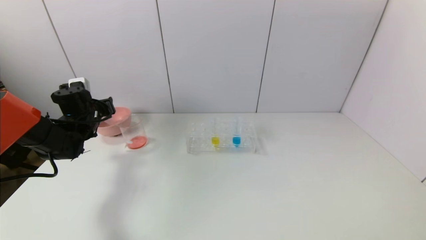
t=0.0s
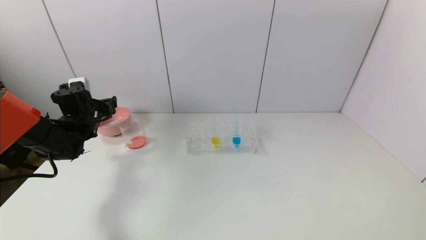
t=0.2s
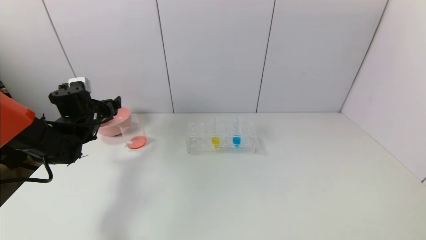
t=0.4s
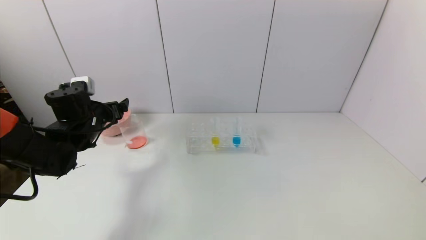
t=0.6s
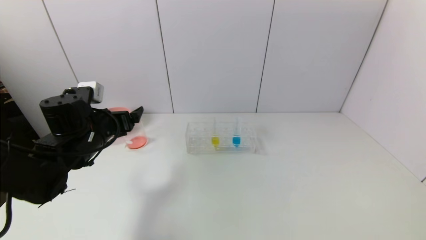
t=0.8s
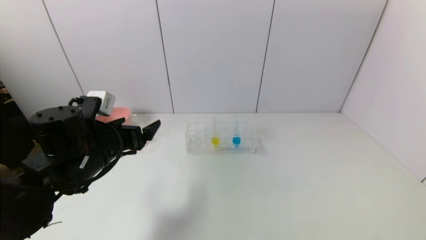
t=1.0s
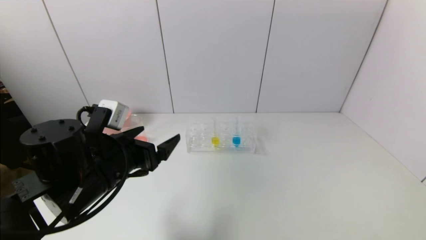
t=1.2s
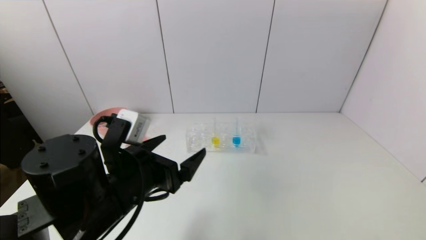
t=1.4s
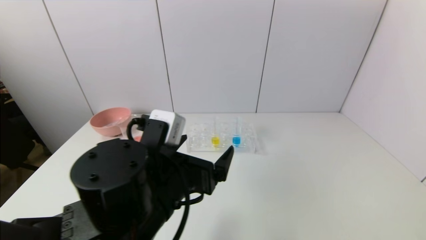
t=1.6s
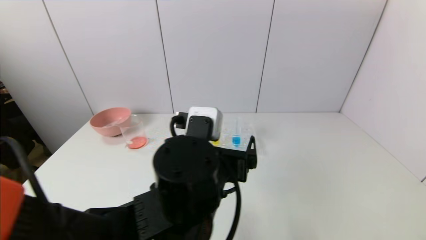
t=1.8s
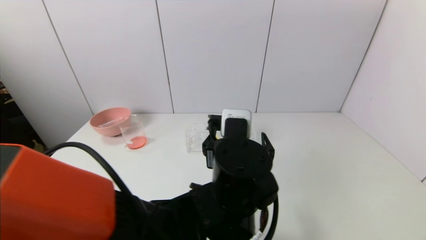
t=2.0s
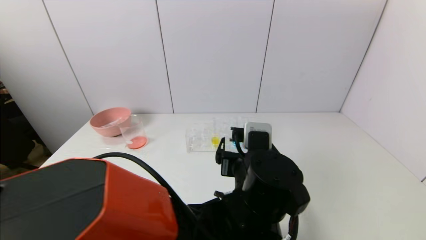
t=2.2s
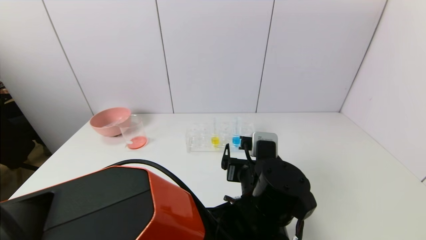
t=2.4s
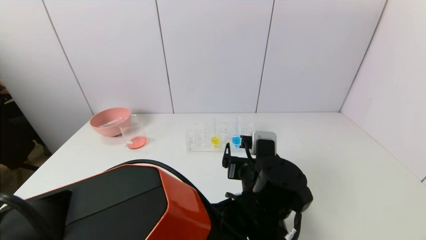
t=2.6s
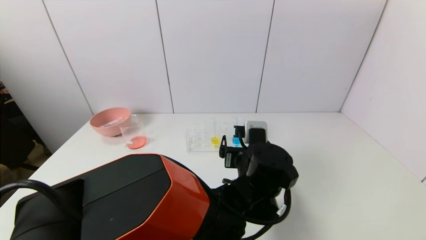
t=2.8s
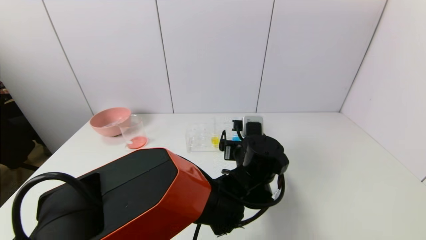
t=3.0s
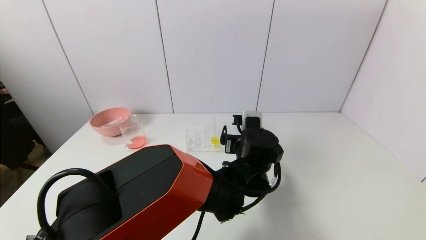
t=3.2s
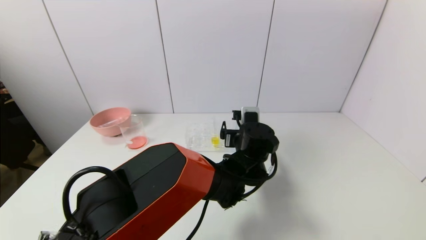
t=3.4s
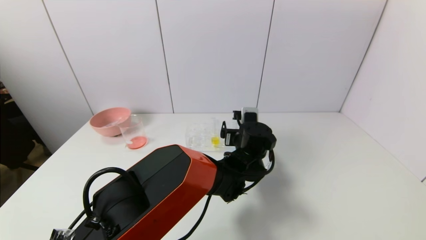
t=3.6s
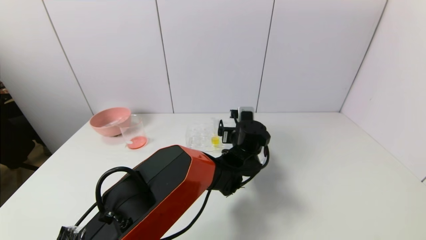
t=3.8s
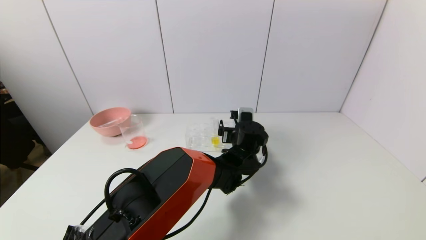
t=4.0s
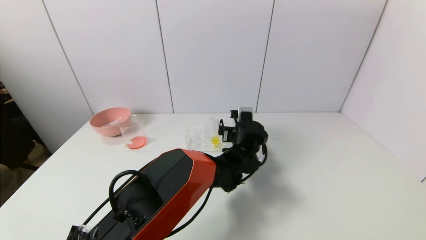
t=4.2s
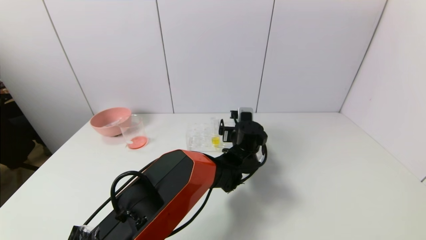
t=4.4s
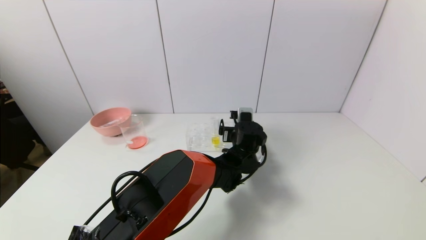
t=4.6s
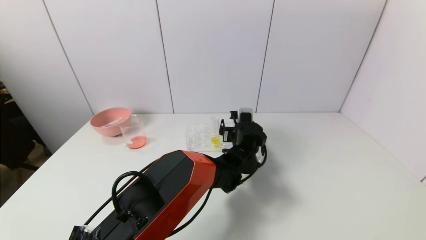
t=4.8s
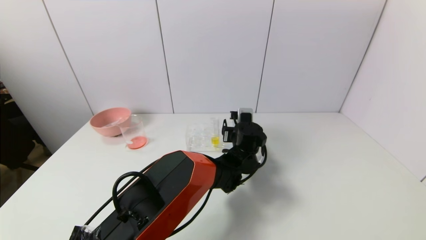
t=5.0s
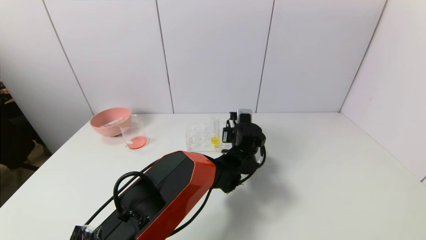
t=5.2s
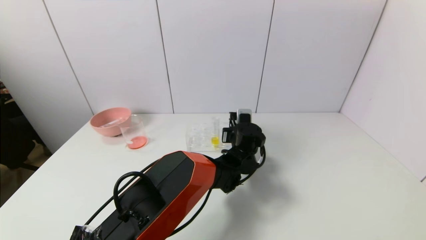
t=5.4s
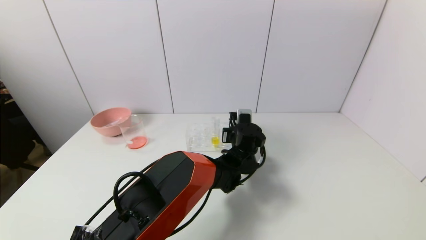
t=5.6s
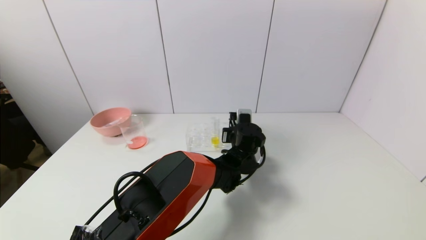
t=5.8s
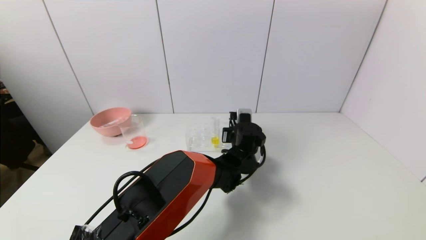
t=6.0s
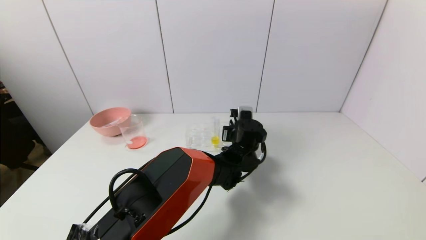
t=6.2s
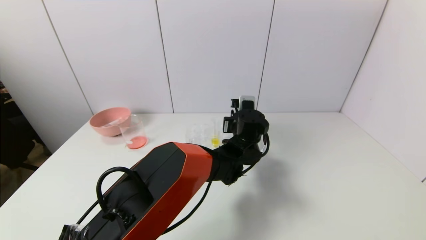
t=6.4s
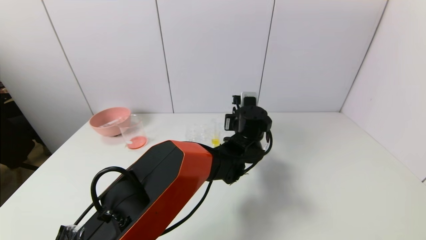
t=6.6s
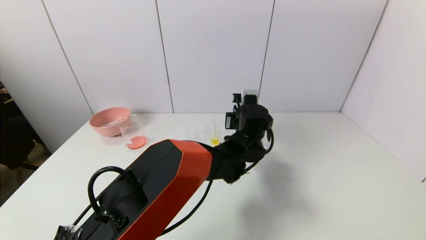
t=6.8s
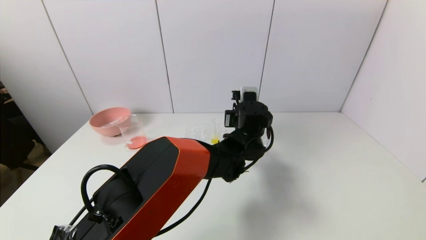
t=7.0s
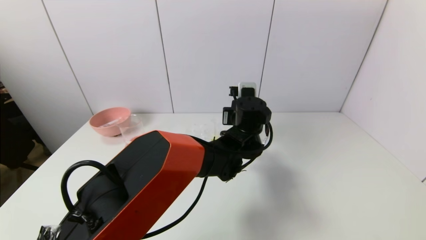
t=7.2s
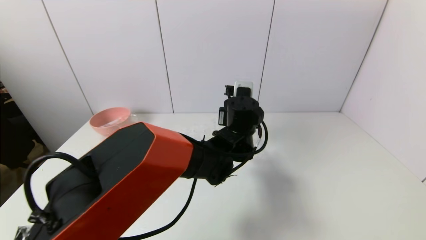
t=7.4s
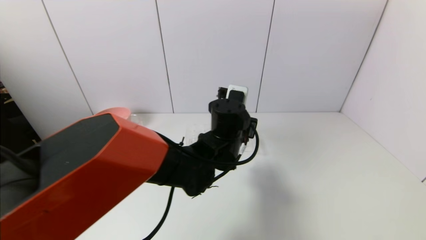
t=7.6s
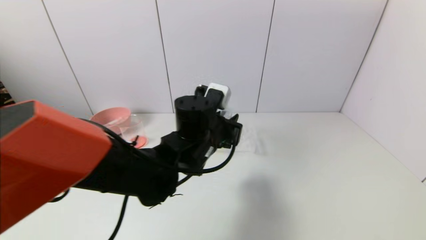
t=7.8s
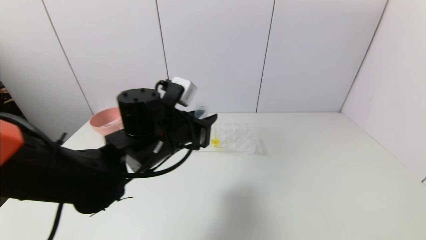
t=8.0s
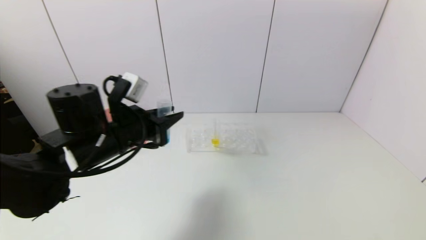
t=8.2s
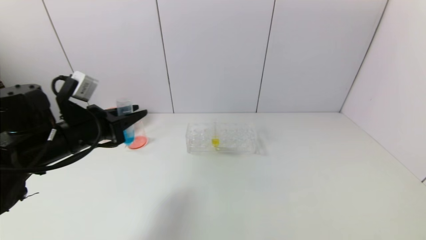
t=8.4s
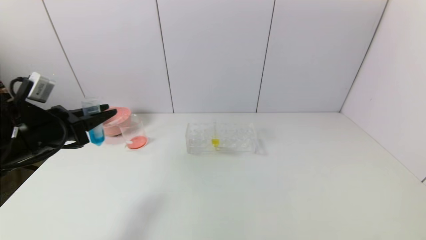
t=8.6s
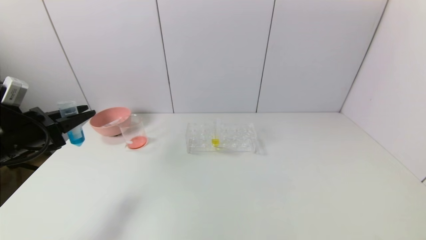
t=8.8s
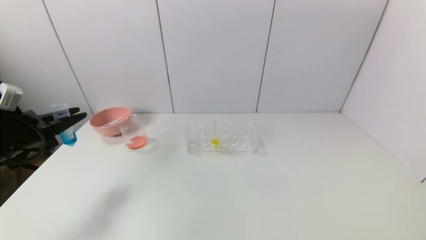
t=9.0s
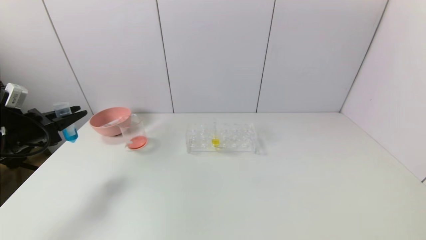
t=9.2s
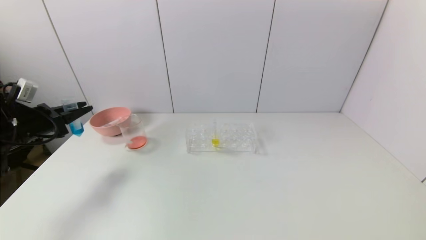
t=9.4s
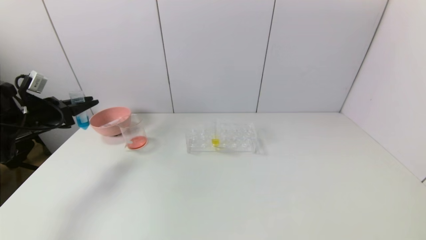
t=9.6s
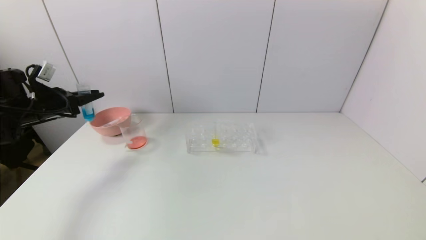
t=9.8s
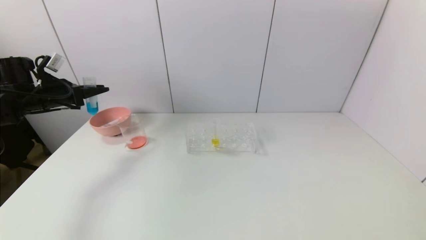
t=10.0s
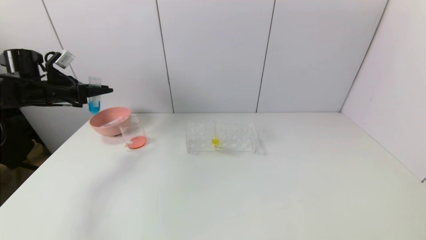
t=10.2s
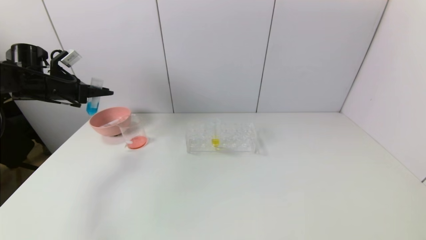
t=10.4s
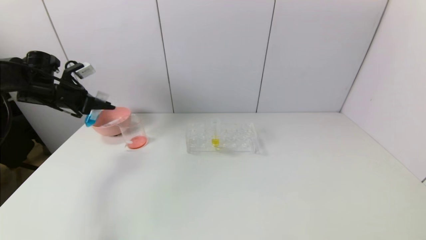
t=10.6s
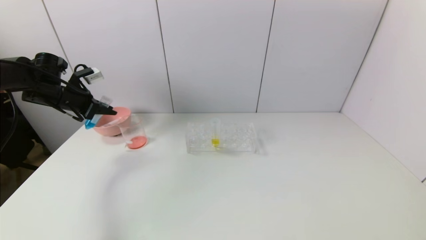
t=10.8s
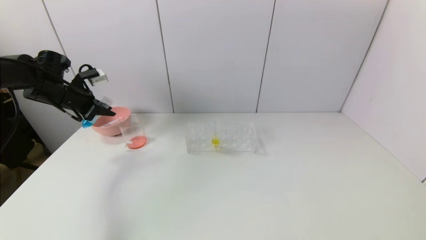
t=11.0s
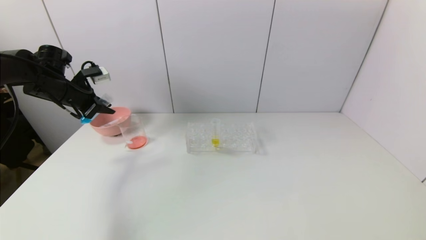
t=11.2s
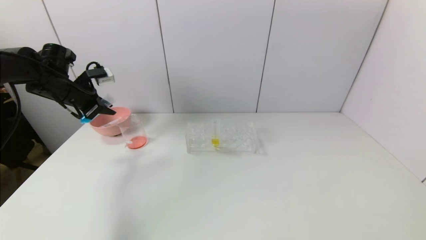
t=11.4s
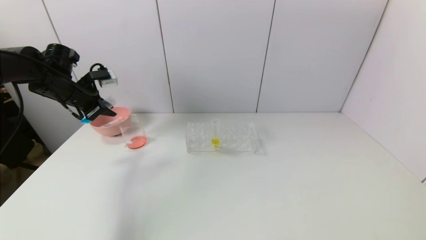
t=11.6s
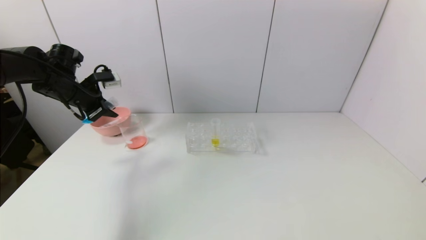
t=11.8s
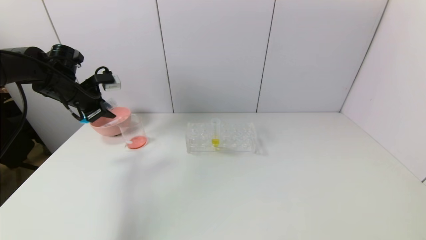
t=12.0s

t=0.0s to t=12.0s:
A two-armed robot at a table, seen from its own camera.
Task of the whole recording: pick up the test tube with red pigment and the test tube with blue pigment by grippers and pour them into the container.
Step, t=0.0s to t=5.4s: Grasp the blue reagent with the left gripper.
t=0.0s to t=1.6s: The left gripper moves to the right and backward, some 35 cm, and opens its fingers.
t=1.6s to t=3.0s: The left gripper moves to the right, forward and downward, approximately 20 cm.
t=3.0s to t=4.4s: The left gripper shifts about 10 cm forward.
t=4.4s to t=6.0s: The left gripper closes up.
t=6.0s to t=7.6s: The left gripper is displaced upward, backward and to the left by some 15 cm.
t=7.6s to t=9.0s: The left gripper is displaced to the left by some 40 cm.
t=9.0s to t=10.4s: The left gripper heads forward and upward, covering some 15 cm.
t=10.4s to t=12.0s: The left gripper moves to the right, about 5 cm.

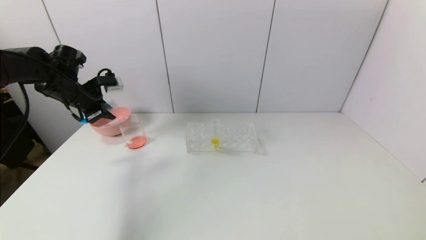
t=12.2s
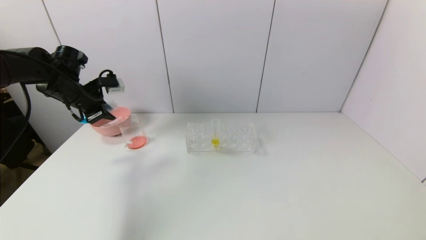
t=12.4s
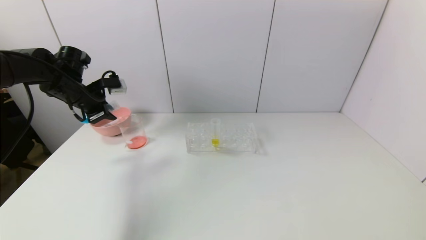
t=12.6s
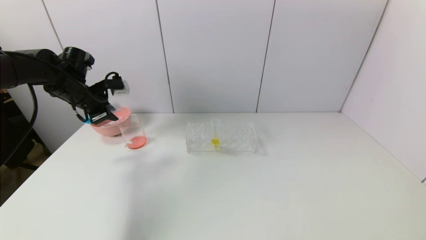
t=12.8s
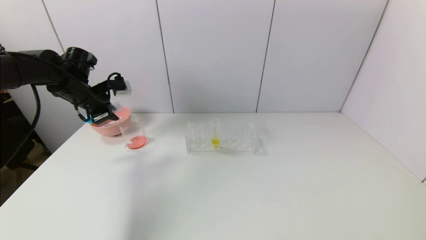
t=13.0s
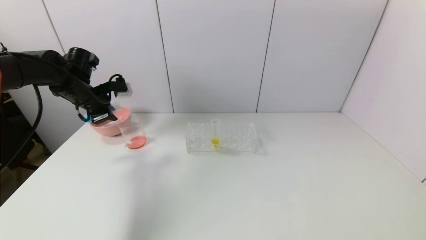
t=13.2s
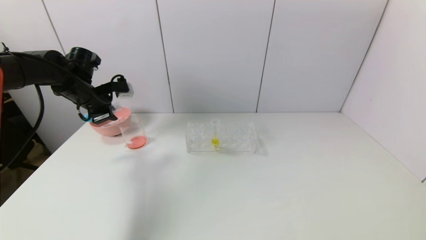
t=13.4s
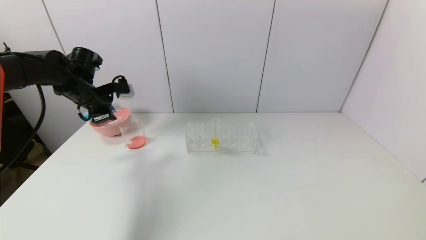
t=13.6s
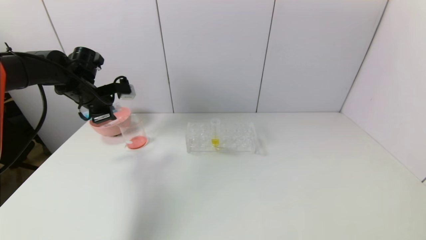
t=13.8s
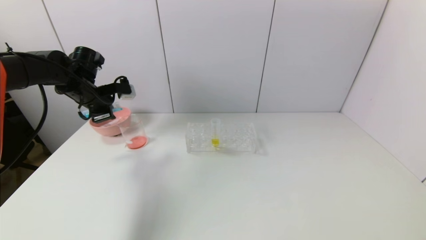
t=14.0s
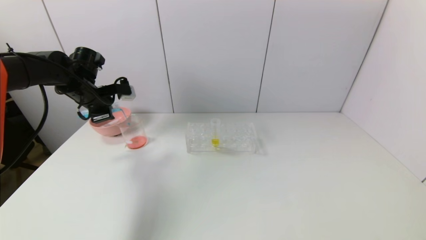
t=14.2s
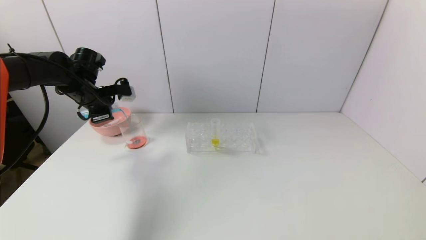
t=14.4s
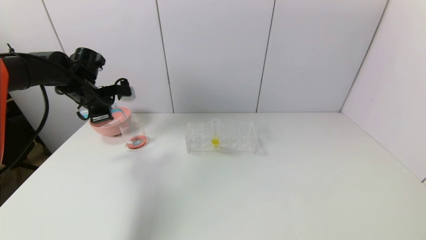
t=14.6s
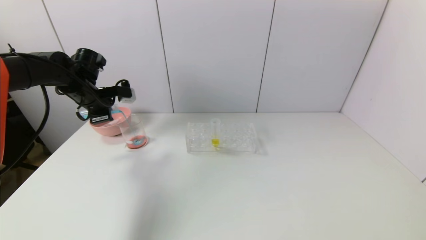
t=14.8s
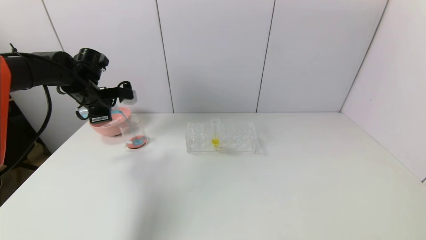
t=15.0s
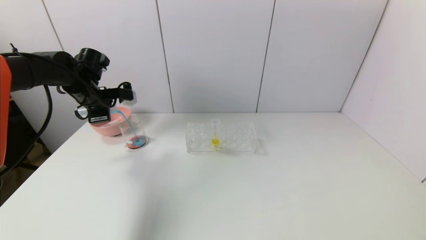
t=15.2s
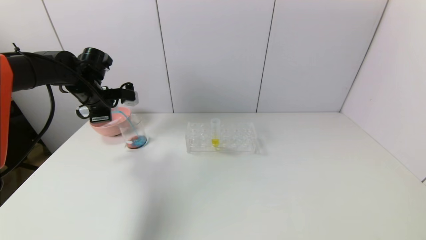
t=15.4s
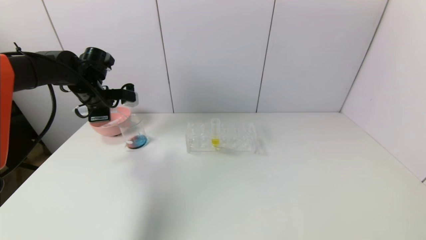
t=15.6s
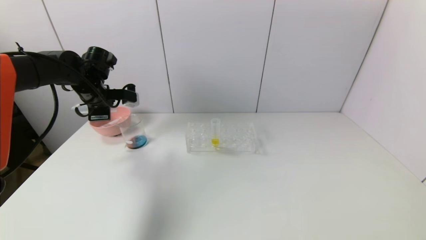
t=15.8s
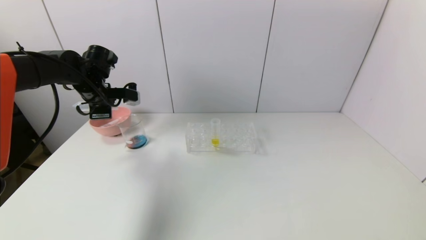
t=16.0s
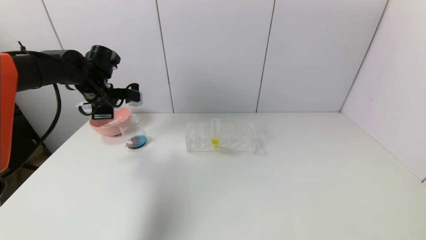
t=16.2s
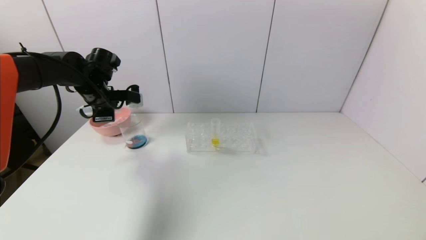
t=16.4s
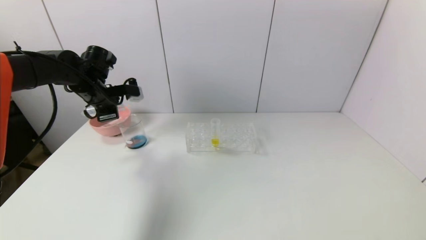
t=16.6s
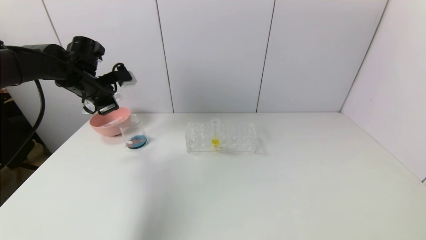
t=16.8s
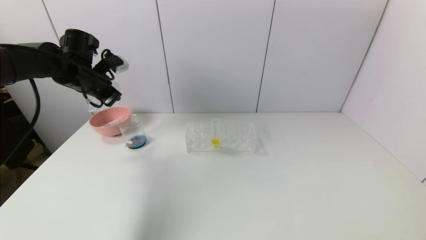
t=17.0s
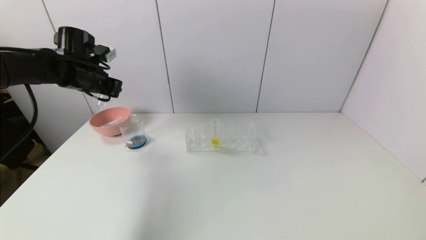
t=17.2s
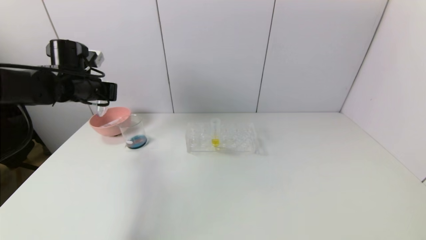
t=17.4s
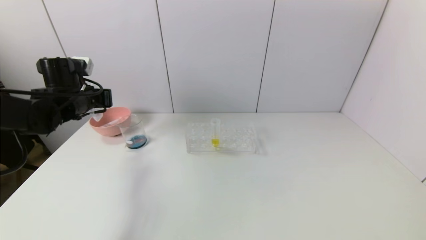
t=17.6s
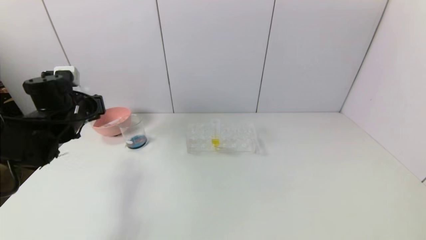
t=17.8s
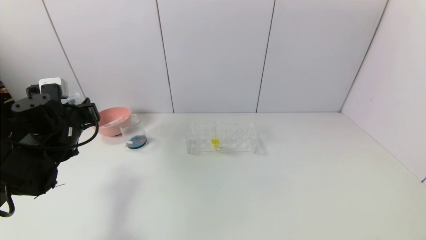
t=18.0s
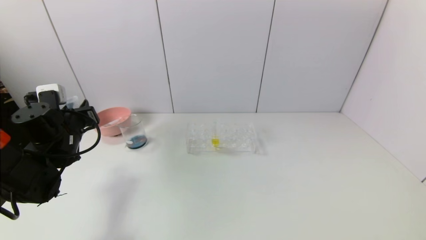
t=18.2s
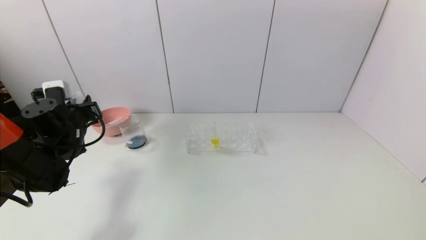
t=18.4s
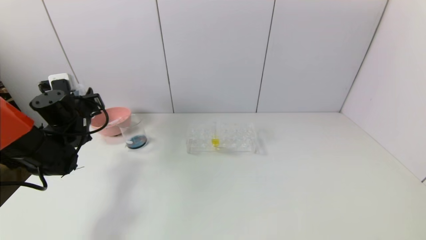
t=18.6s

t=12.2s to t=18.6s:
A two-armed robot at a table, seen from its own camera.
Task of the whole recording: pick up the test tube with red pigment and the test tube with blue pigment by grippers and pour them into the container.
Step, t=12.2s to t=16.6s: Pour the blue reagent into the graduated cylinder with the left gripper.
t=12.2s to t=13.8s: There are only small adjustments of the grippers.
t=13.8s to t=15.4s: The grippers move only a little.
t=17.0s to t=18.6s: The left gripper is displaced downward by about 10 cm.
